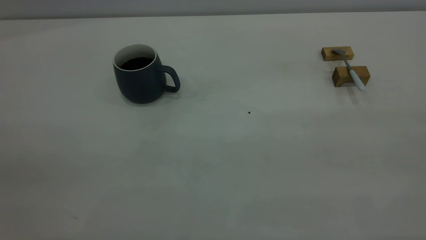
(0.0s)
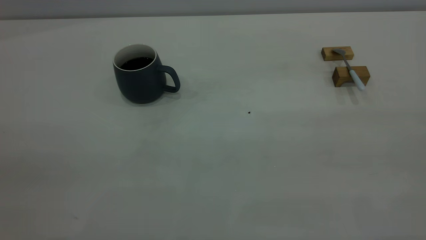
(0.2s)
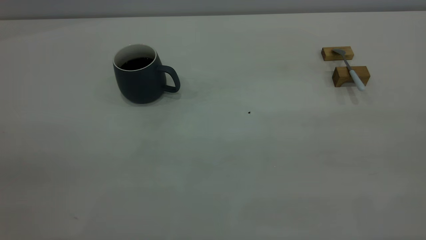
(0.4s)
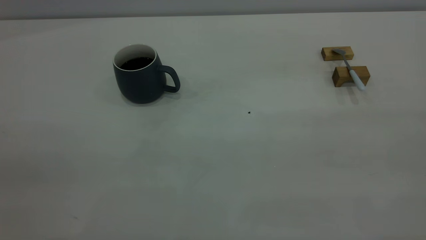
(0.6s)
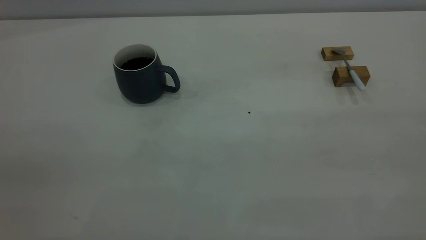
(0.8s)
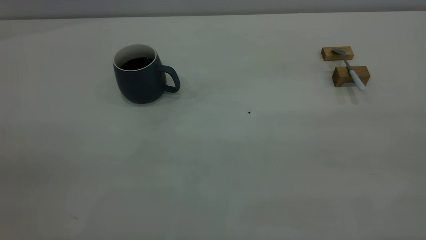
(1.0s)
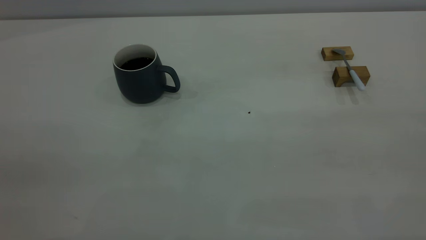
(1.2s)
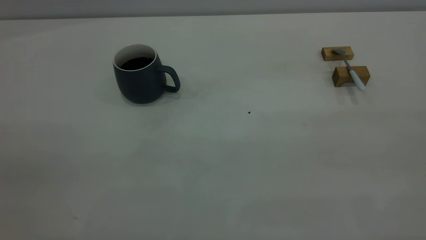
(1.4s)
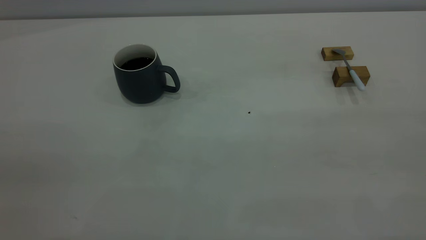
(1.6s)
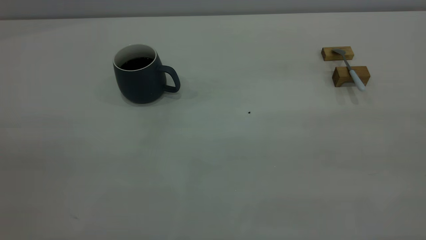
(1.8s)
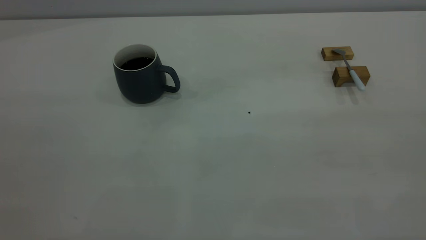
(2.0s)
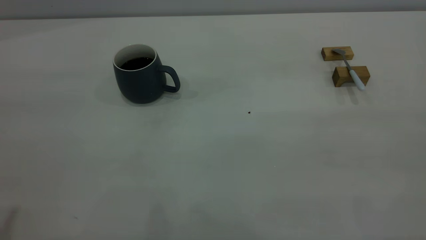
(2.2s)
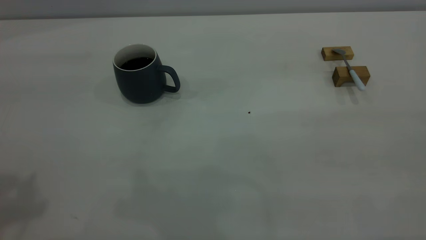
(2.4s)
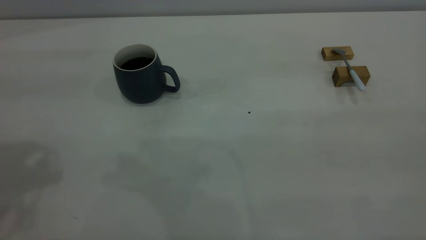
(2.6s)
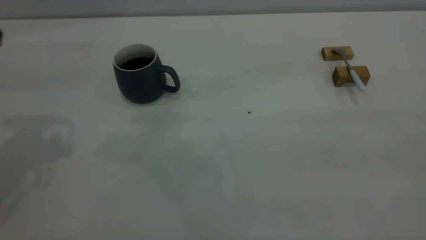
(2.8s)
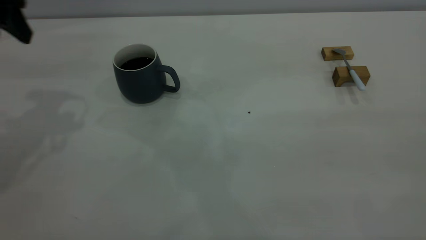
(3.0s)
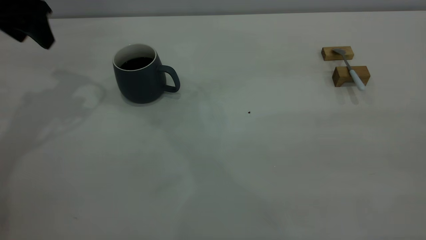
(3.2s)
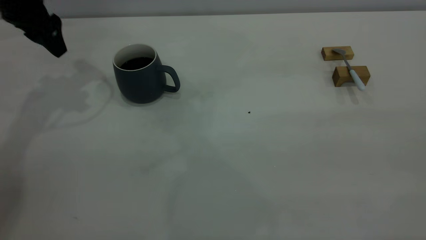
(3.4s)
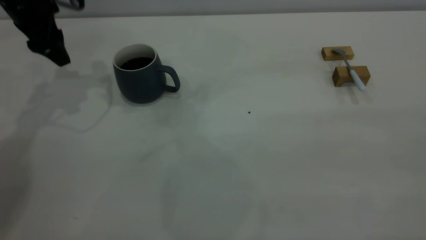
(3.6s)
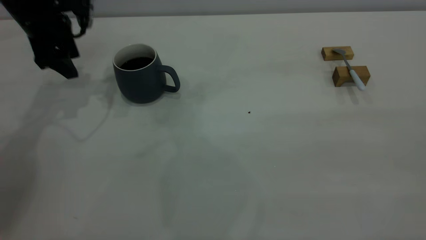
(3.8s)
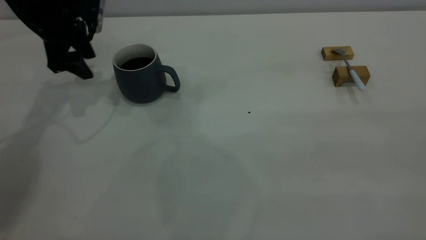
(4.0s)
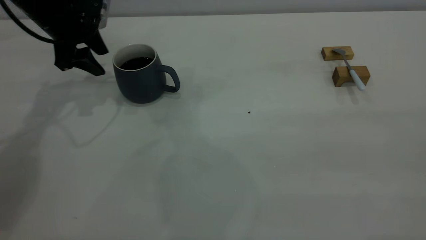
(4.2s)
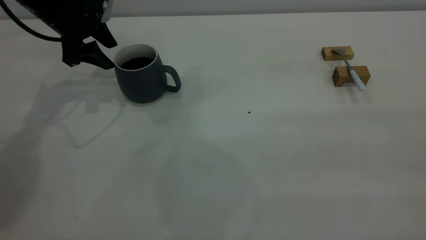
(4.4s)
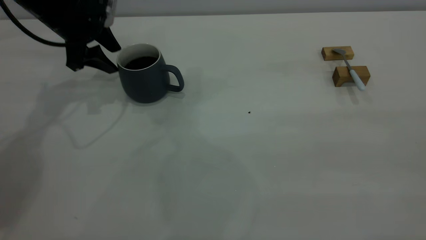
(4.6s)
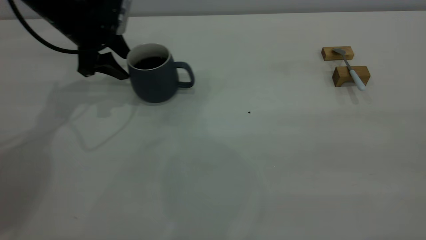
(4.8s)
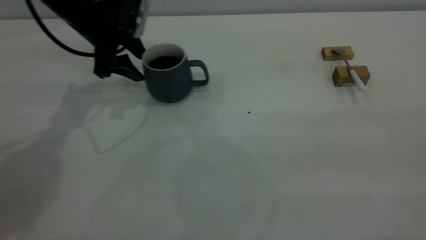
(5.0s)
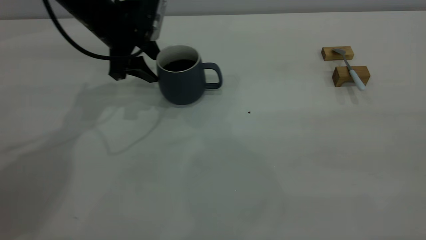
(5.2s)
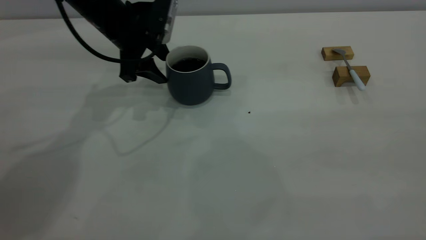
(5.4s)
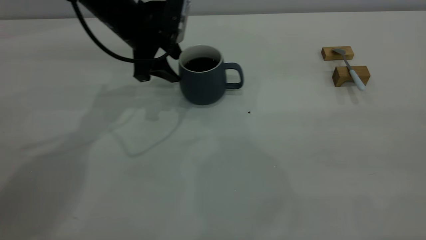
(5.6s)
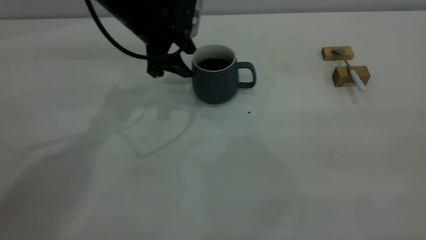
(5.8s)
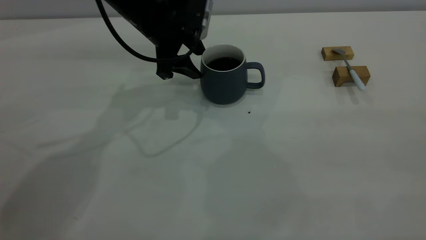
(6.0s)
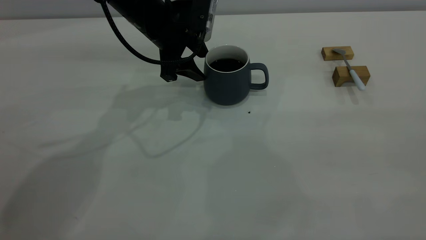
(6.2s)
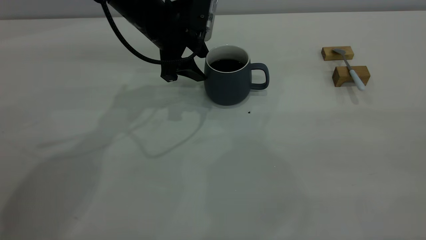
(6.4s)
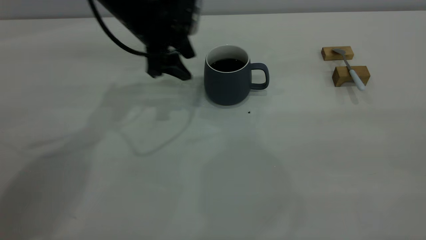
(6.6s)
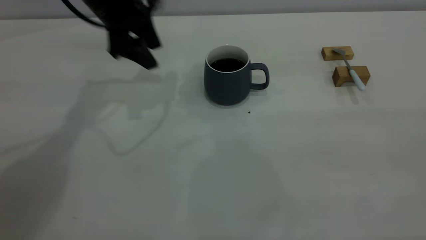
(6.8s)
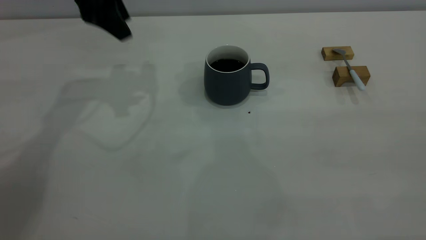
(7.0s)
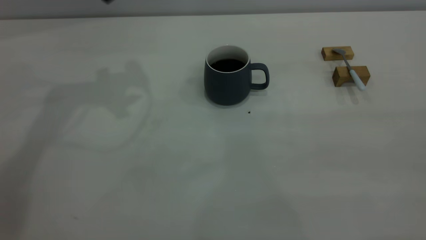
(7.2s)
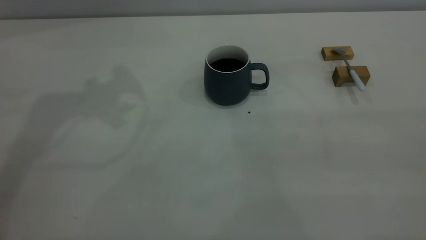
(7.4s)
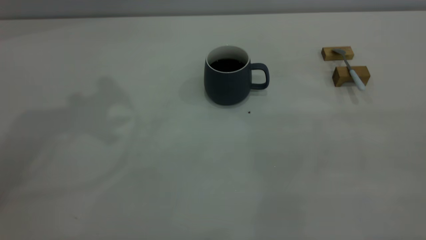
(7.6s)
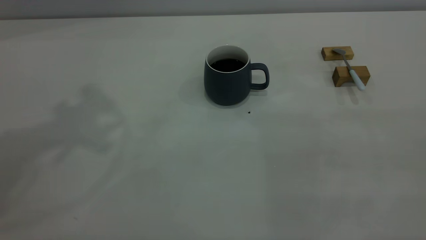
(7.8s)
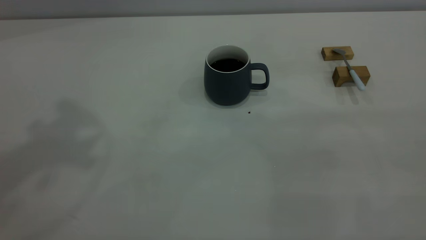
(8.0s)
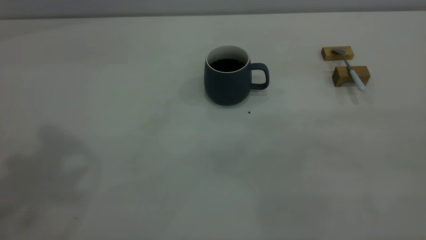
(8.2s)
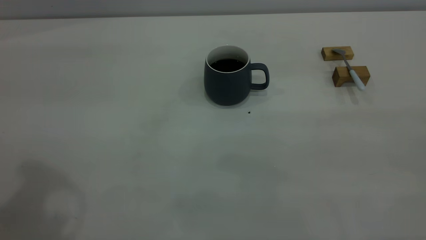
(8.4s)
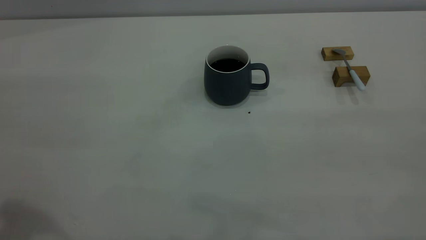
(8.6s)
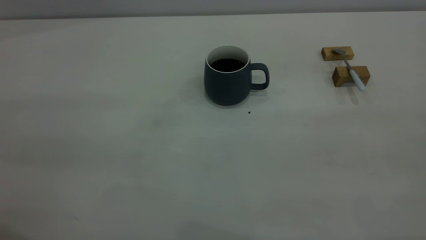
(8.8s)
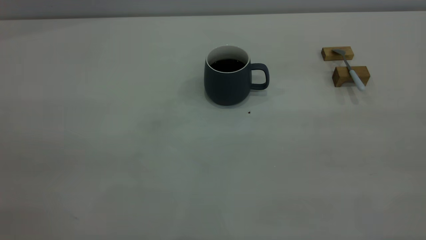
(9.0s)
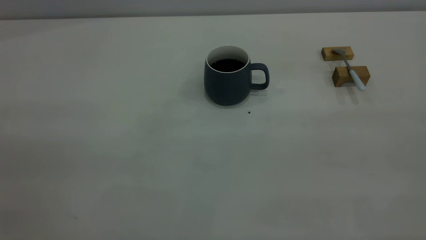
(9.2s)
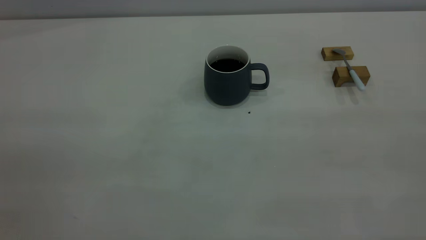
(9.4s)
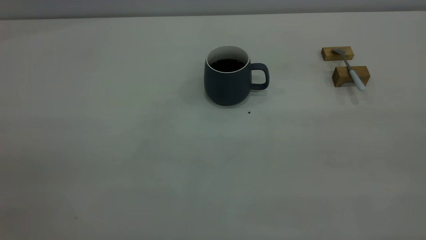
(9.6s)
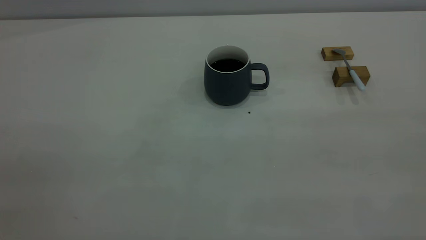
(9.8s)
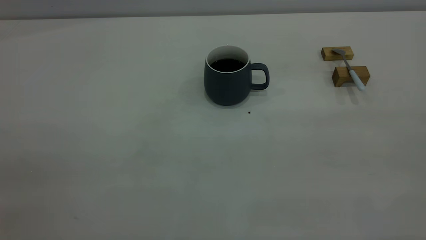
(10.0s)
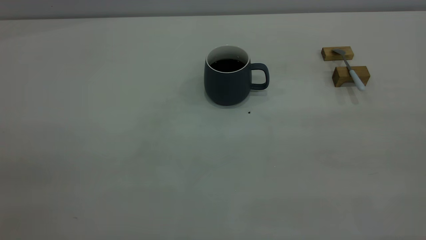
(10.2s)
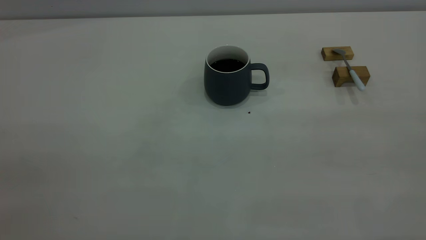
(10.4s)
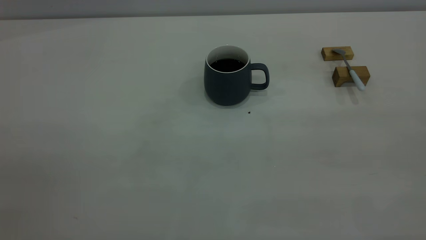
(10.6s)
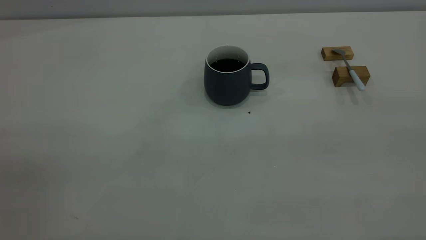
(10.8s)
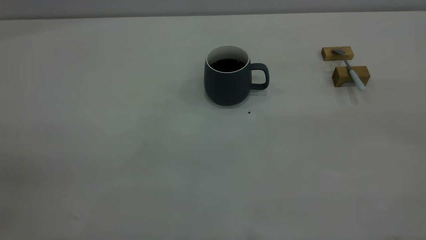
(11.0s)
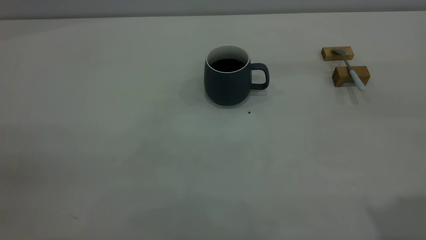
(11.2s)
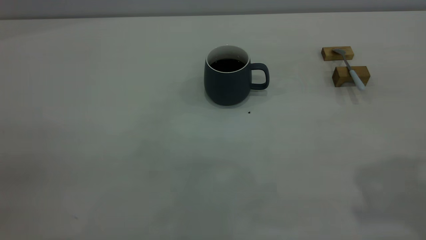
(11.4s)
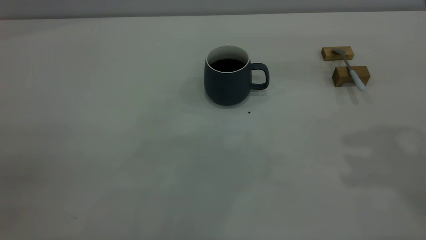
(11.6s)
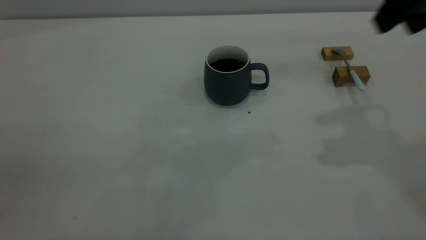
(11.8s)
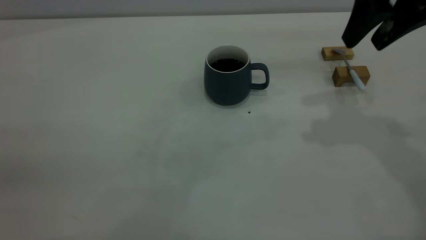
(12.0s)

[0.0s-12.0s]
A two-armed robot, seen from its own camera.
Step, 0.0s to 6.6s: Move the cup with coffee to the center of view.
0.0s to 1.6s: Neither gripper changes place.
1.6s to 3.0s: The left gripper travels forward by approximately 35 cm.
3.0s to 4.4s: The left gripper goes some 15 cm downward and forward.
4.4s to 6.0s: The left gripper travels to the right by about 15 cm.
6.0s to 7.6s: The left gripper heads upward, covering roughly 30 cm.
10.4s to 12.0s: The right gripper travels forward by some 35 cm, and opens its fingers.

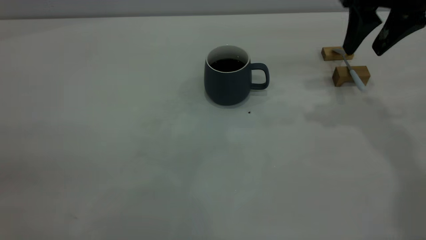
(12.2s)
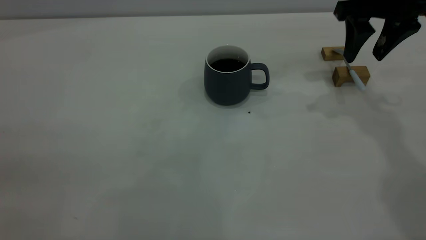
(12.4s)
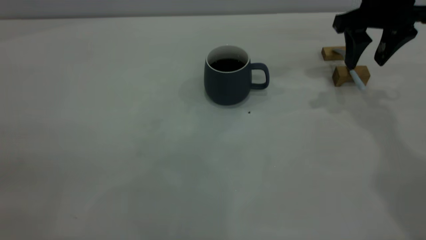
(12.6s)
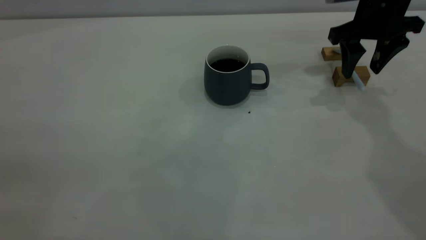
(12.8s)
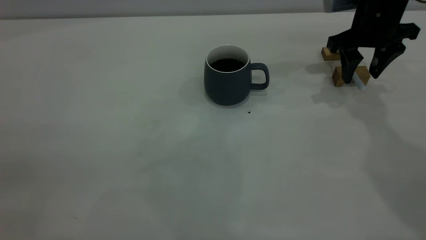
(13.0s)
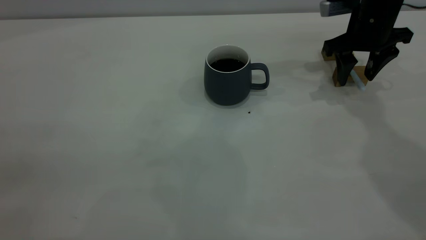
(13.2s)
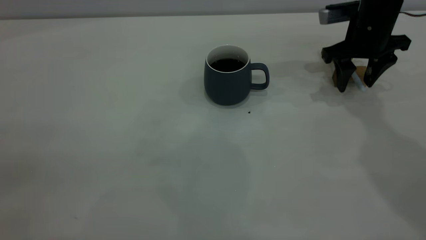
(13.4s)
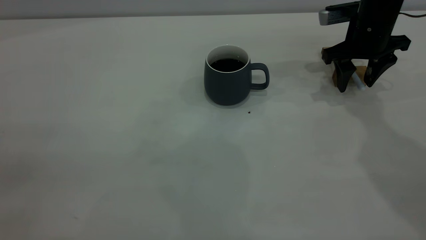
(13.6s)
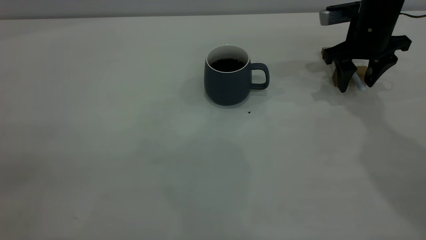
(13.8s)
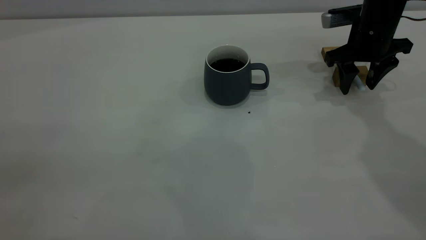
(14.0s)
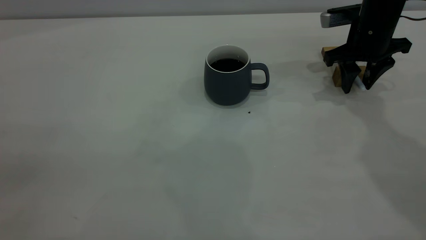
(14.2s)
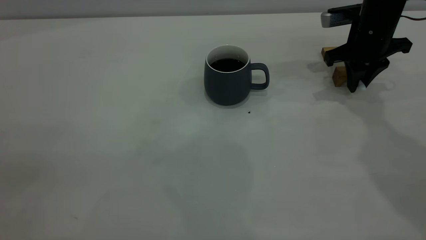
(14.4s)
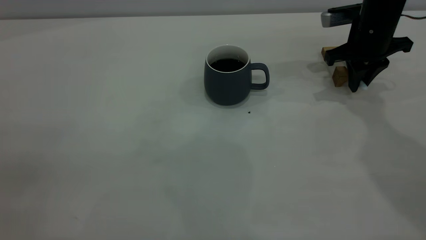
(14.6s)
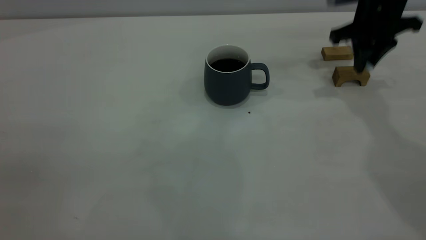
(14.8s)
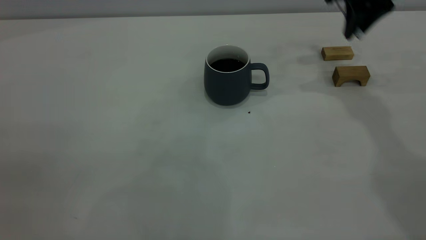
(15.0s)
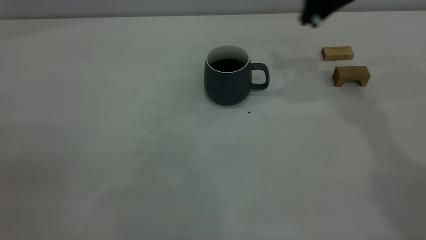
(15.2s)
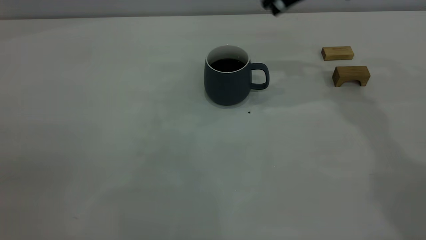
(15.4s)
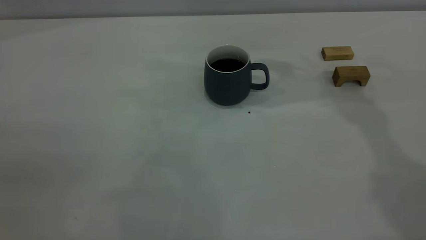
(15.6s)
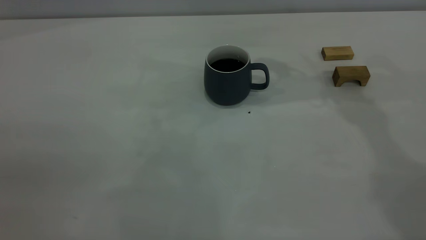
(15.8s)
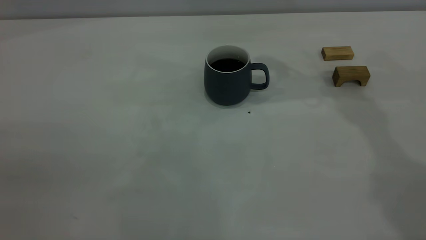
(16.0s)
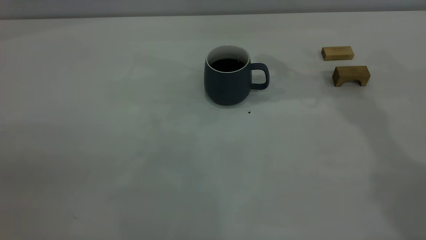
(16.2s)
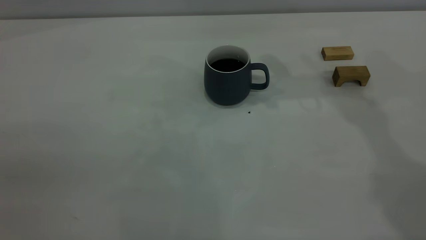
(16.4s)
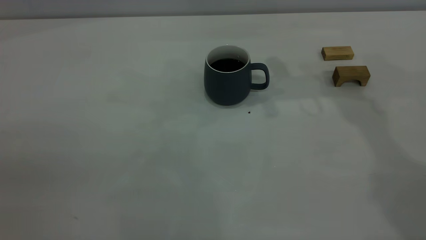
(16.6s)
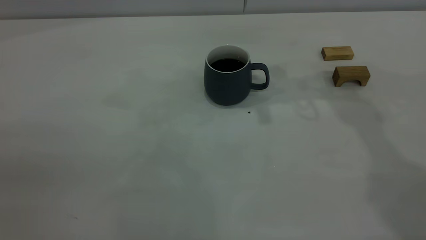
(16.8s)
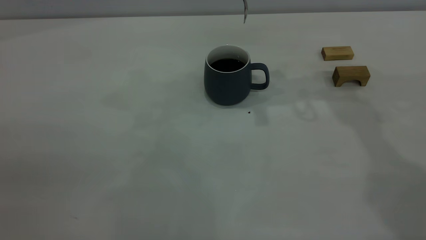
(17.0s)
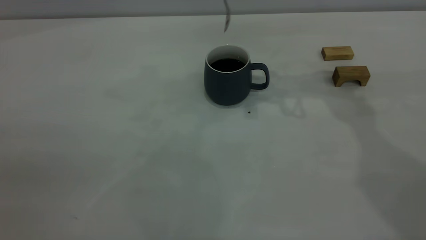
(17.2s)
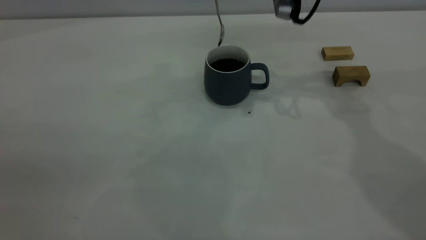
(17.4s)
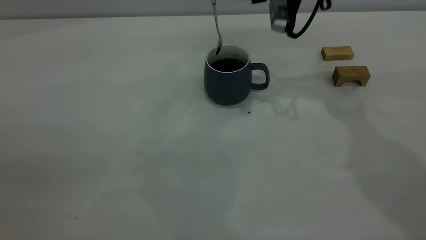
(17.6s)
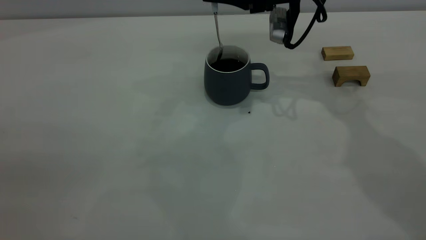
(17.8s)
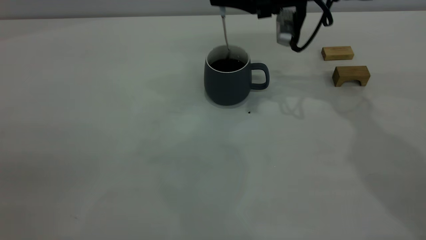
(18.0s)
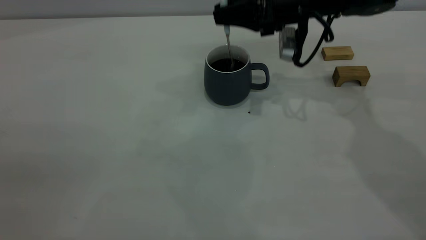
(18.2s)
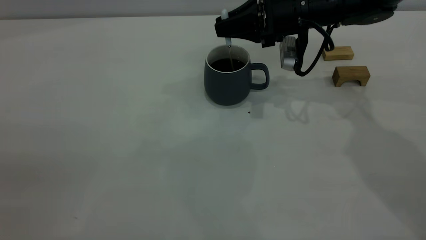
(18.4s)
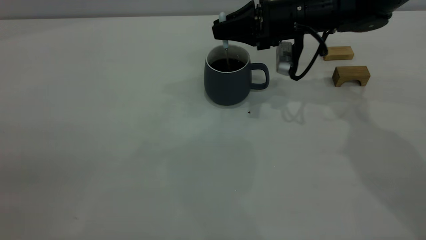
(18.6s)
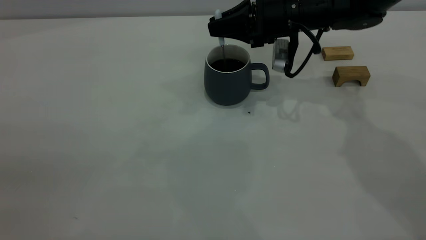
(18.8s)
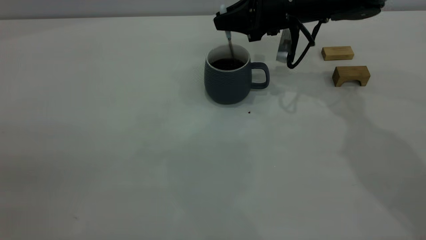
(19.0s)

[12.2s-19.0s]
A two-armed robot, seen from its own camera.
Step, 12.2s to 14.8s: Pick up the spoon.
12.2s to 13.6s: The right gripper shifts some 10 cm downward and forward.
13.6s to 15.0s: The right gripper goes about 10 cm upward, and closes.
15.0s to 16.2s: The right gripper goes approximately 10 cm to the left and upward.
16.2s to 17.6s: The right gripper goes about 10 cm downward.
17.6s to 19.0s: The right gripper moves downward, approximately 5 cm.
